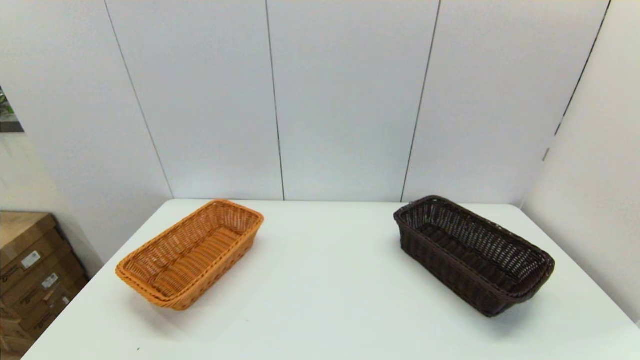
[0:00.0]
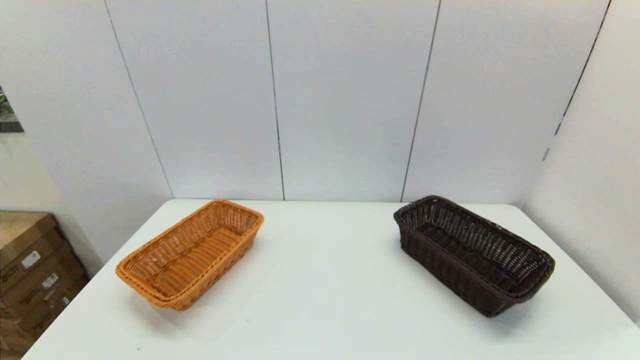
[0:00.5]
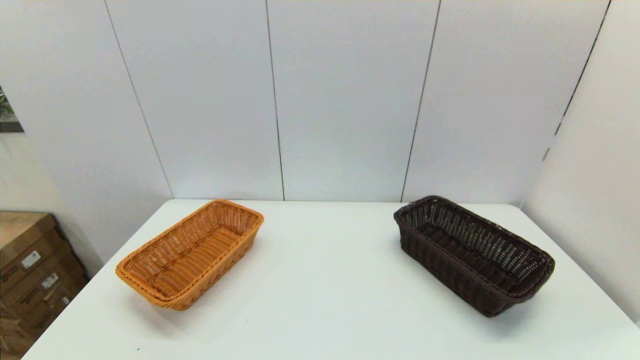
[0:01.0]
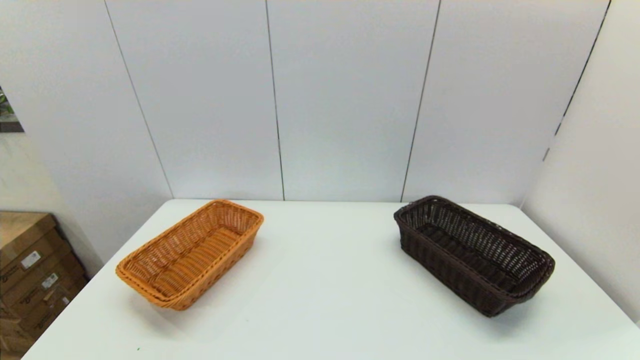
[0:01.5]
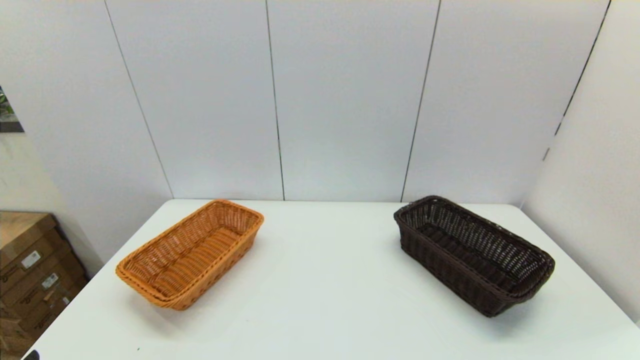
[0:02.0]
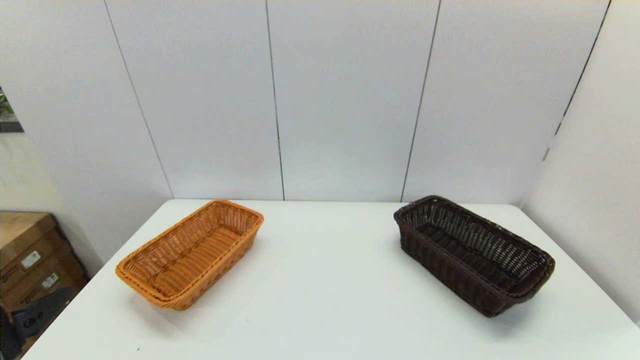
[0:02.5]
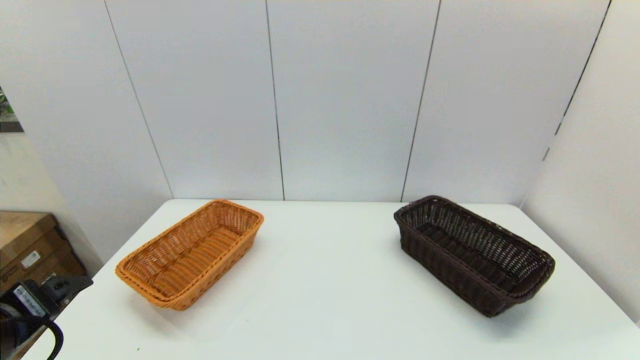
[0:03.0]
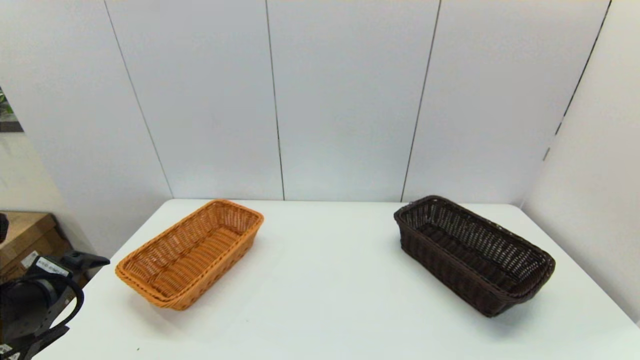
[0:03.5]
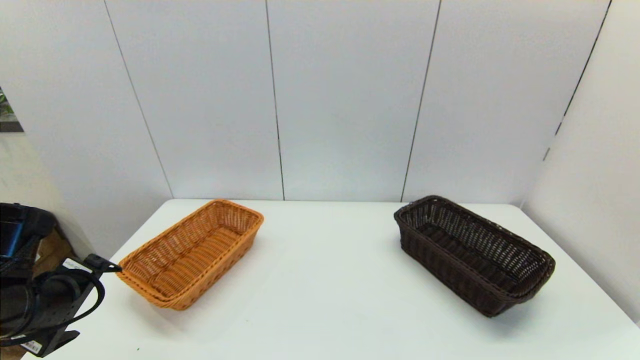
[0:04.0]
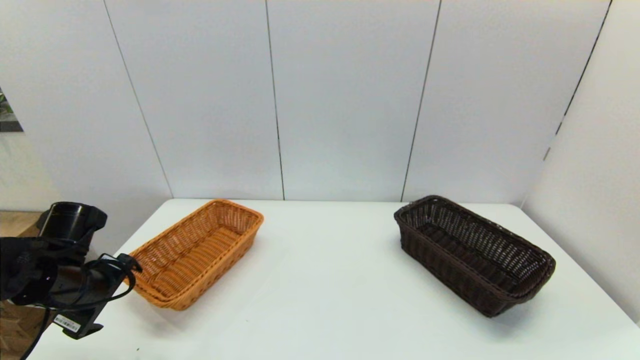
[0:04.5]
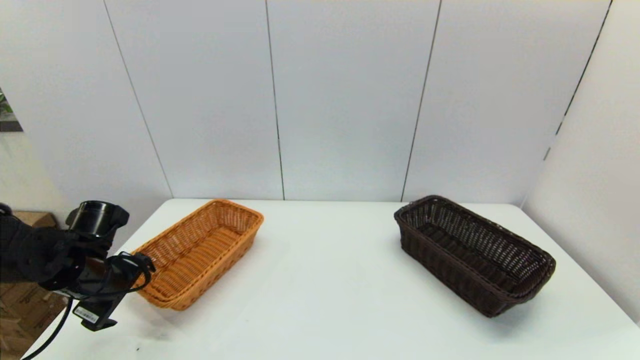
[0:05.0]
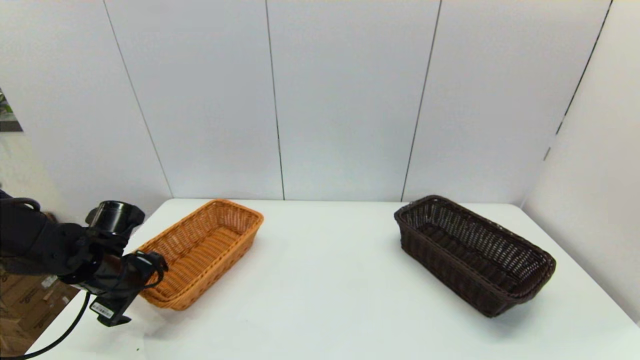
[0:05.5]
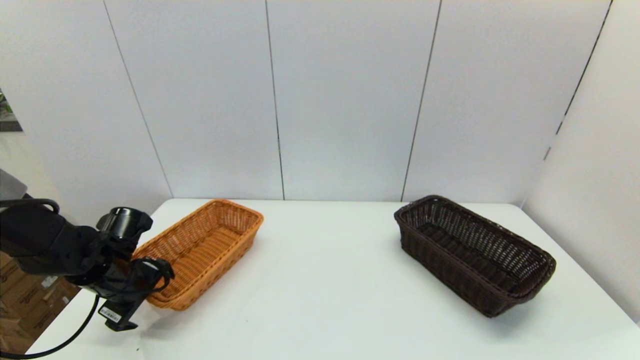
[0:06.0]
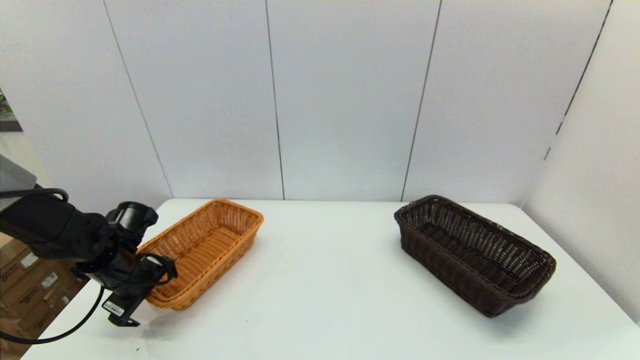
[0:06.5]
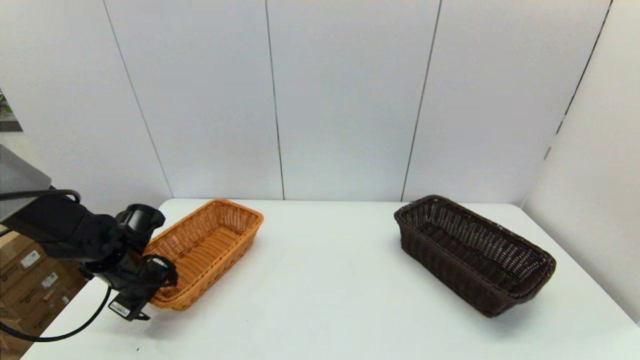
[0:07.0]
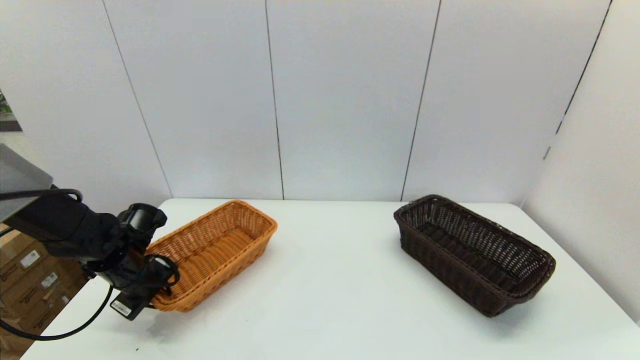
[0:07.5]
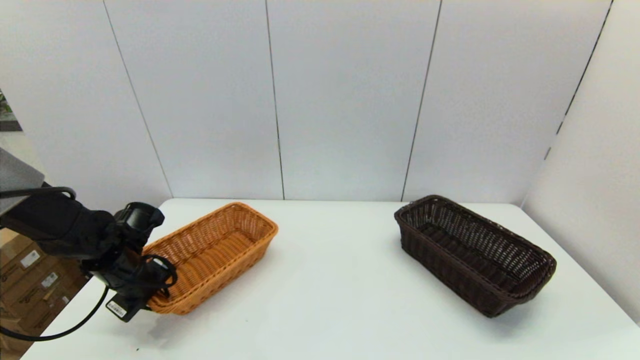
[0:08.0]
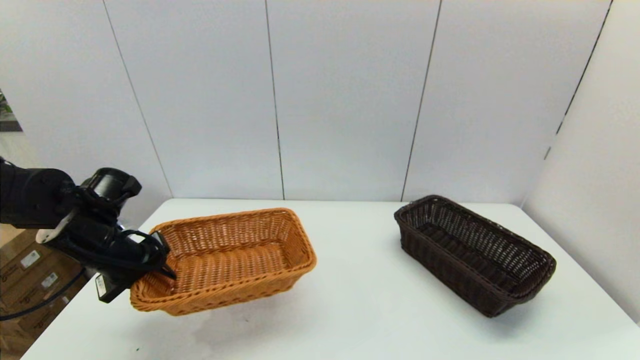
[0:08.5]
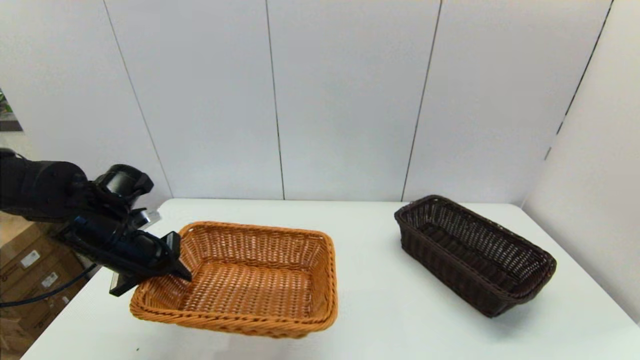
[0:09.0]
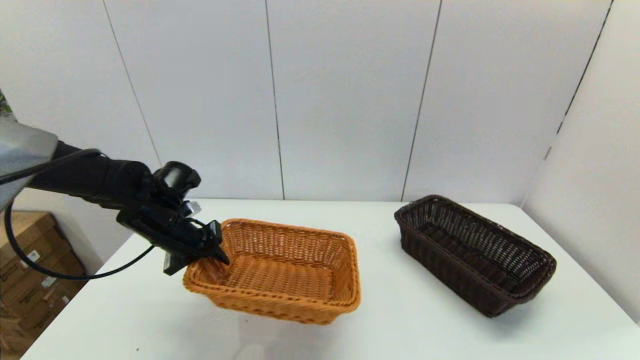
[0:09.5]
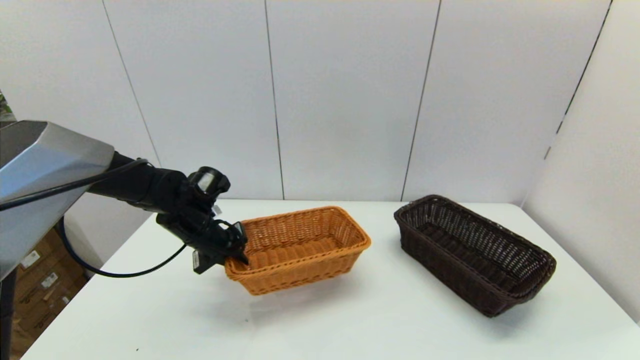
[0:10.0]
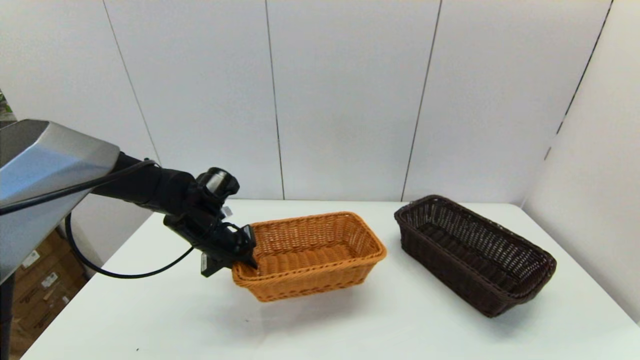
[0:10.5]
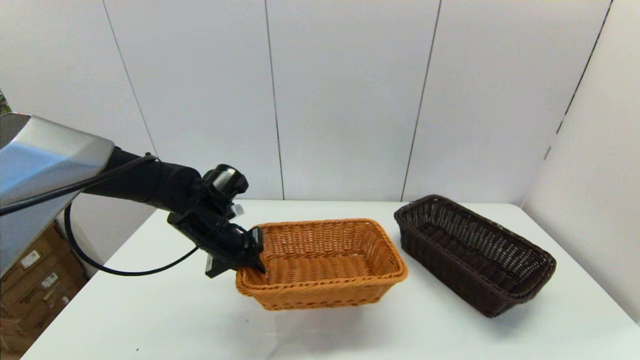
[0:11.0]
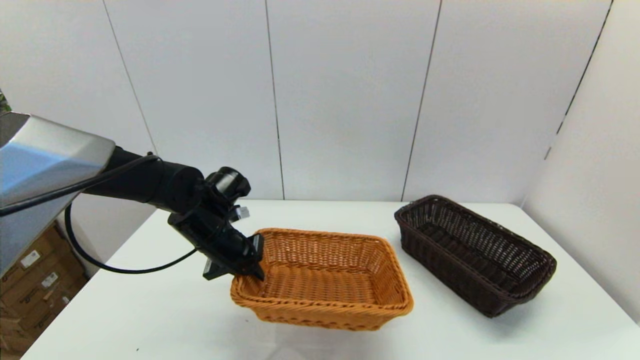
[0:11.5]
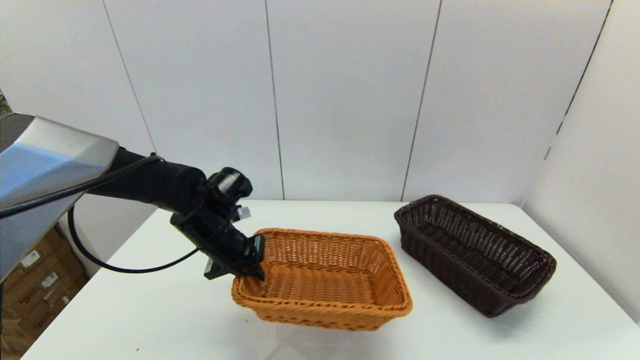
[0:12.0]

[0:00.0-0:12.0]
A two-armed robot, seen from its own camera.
Task of the whole recording: stack a basket on top of another basket.
Step, 0:02.0 to 0:07.0: Grasp the light basket with the left gripper.
0:02.0 to 0:04.0: The left gripper heads forward, covering approximately 20 cm.
0:04.0 to 0:06.0: The left gripper moves forward and downward, approximately 15 cm.
0:06.0 to 0:08.0: The left gripper closes its fingers.
0:08.0 to 0:10.0: The left gripper is displaced to the right and forward by roughly 10 cm.
0:10.0 to 0:12.0: The left gripper shifts by approximately 5 cm.

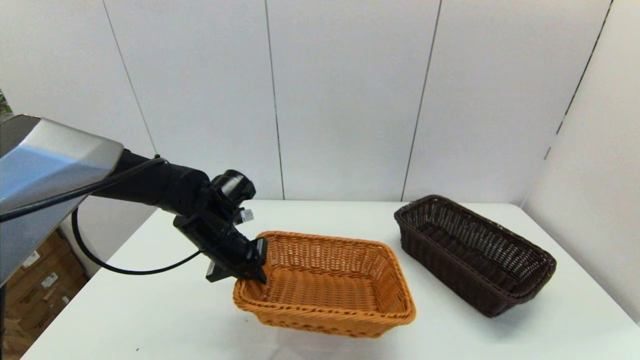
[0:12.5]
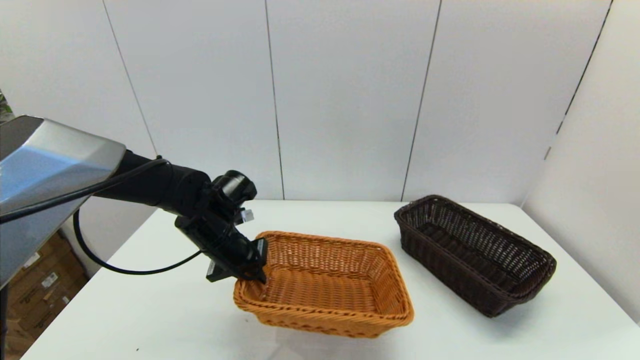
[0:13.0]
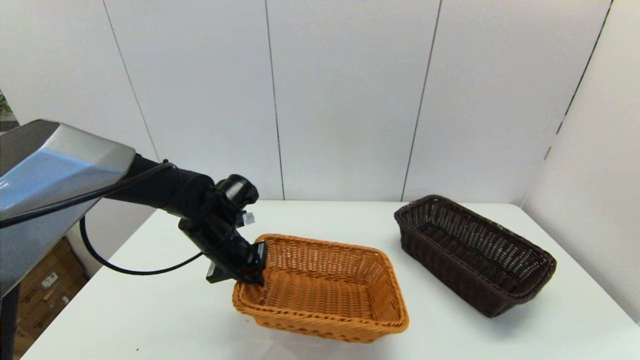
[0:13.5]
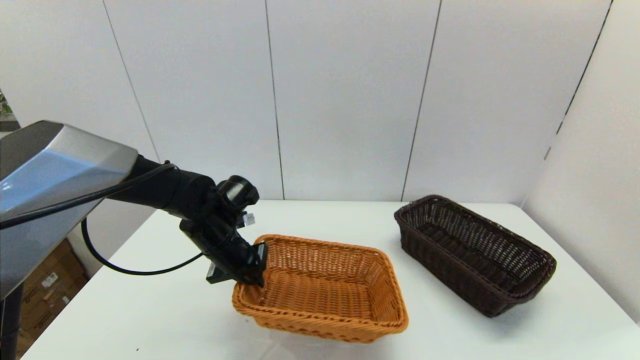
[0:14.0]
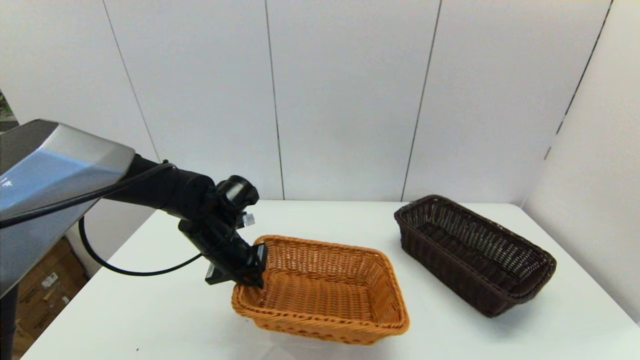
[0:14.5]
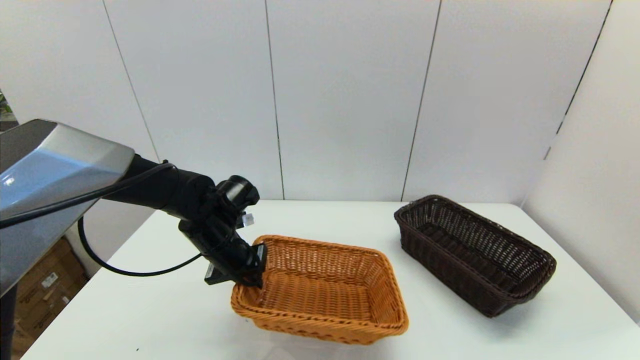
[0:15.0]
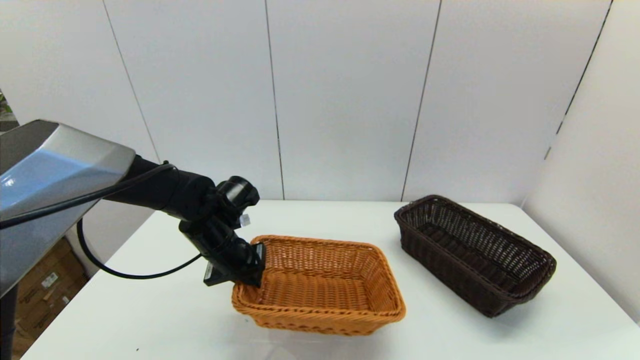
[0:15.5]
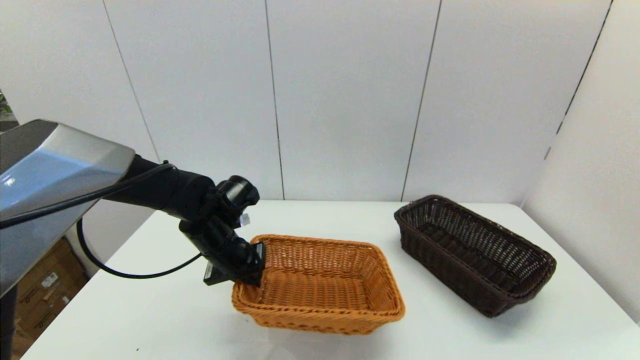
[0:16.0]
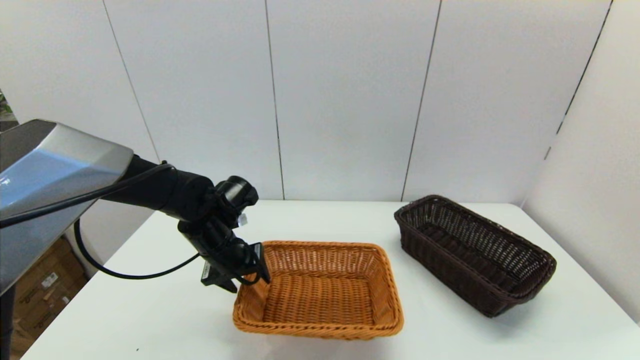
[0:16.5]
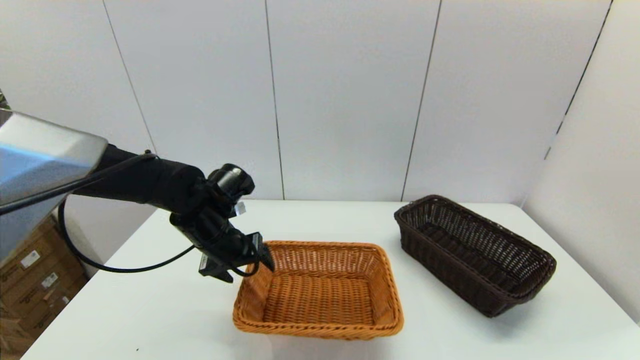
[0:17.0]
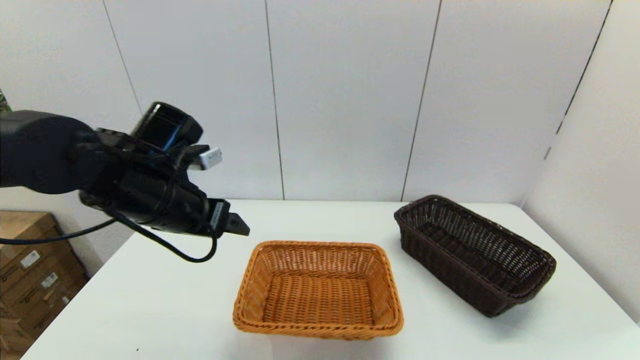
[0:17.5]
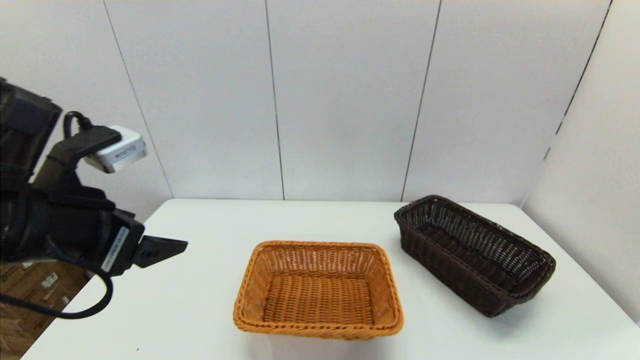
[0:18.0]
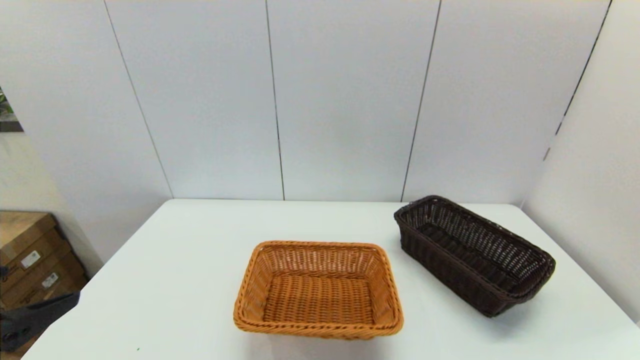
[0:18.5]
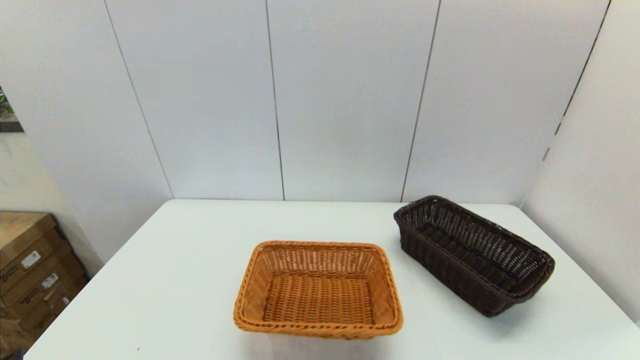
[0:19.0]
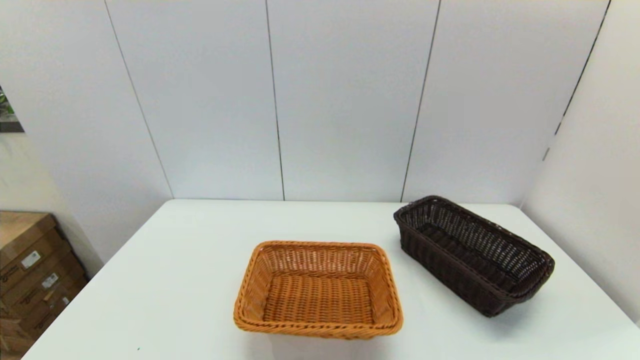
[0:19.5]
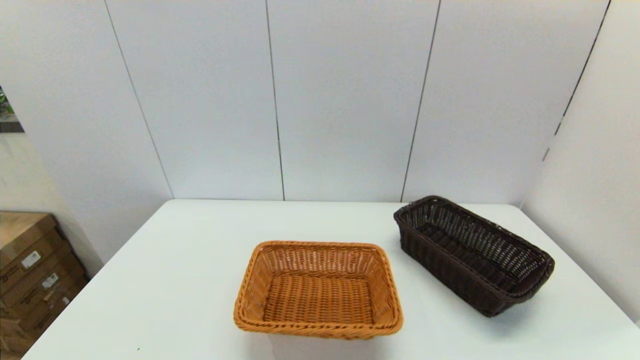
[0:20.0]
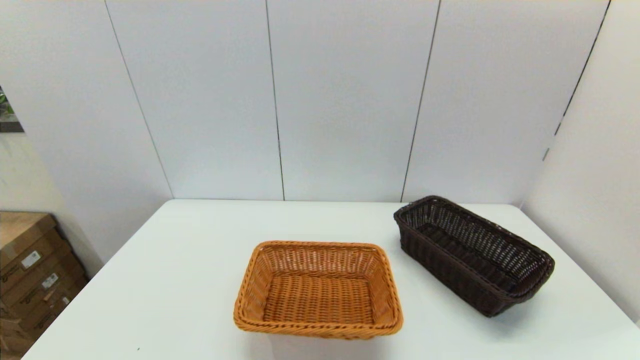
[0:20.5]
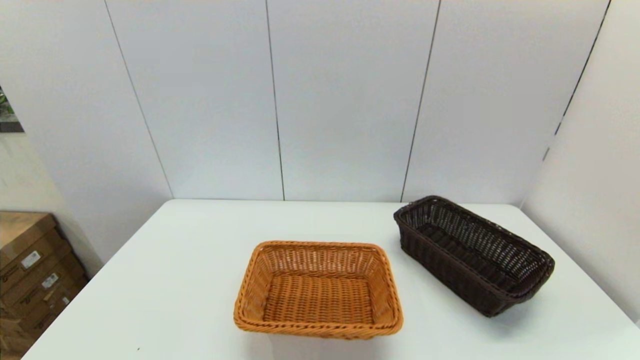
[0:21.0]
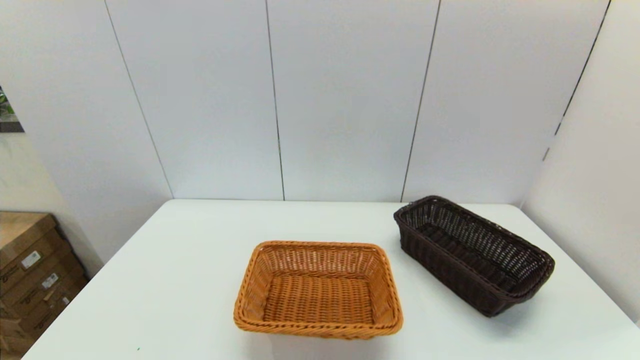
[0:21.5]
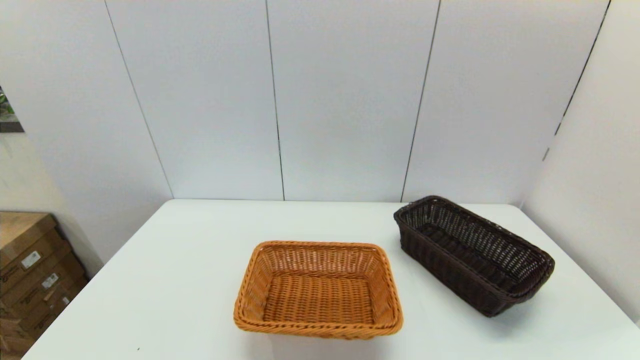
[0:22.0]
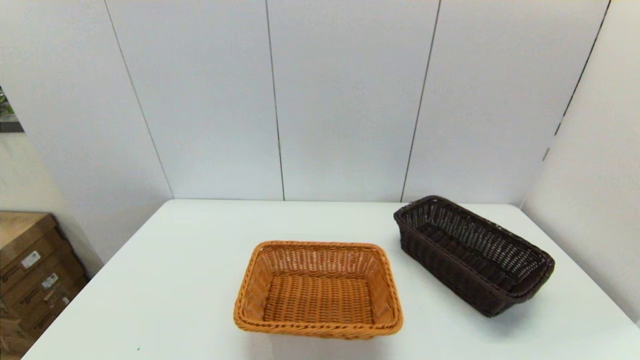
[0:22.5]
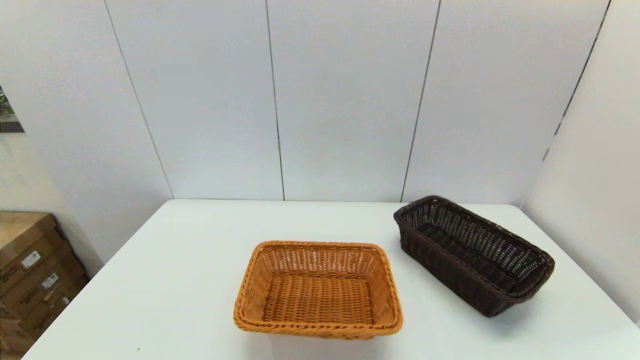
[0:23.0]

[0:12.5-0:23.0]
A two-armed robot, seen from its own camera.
Task of the whole recording: stack a basket on top of another basket.
Step, 0:12.5 to 0:16.5: Place the light basket on the middle of the table with the left gripper.
0:12.5 to 0:14.5: Neither gripper changes place.
0:14.5 to 0:16.5: The left gripper opens up.
0:16.5 to 0:19.0: The left gripper shifts approximately 35 cm backward and to the left.
0:21.0 to 0:23.0: Neither gripper changes place.
